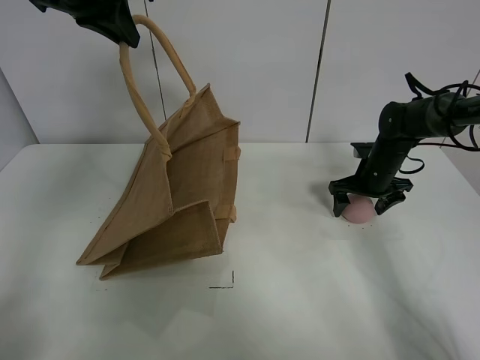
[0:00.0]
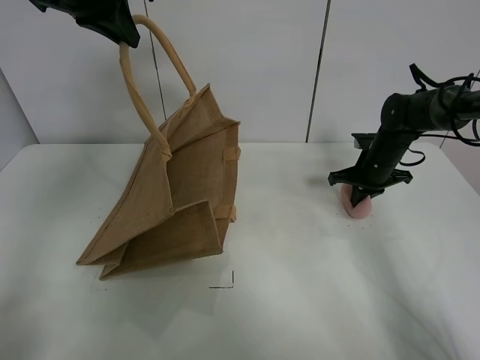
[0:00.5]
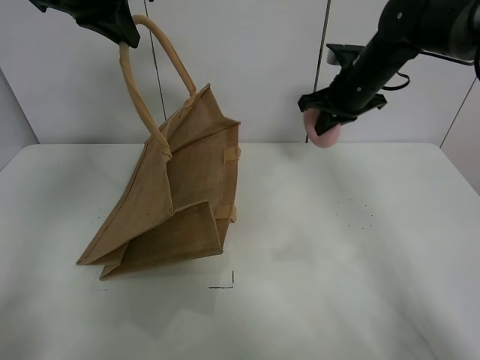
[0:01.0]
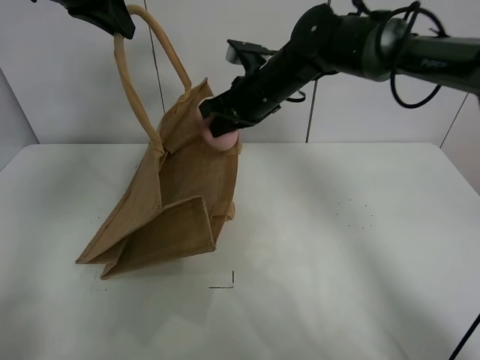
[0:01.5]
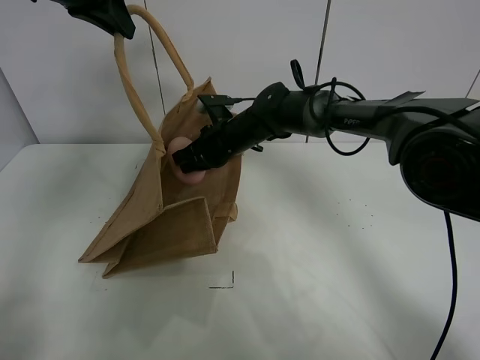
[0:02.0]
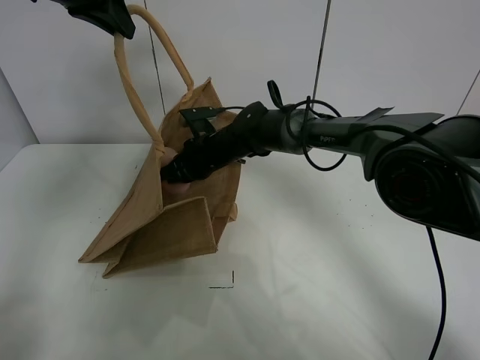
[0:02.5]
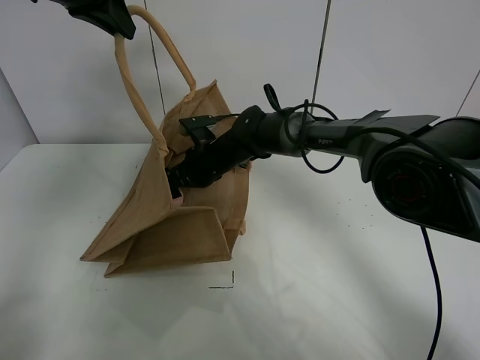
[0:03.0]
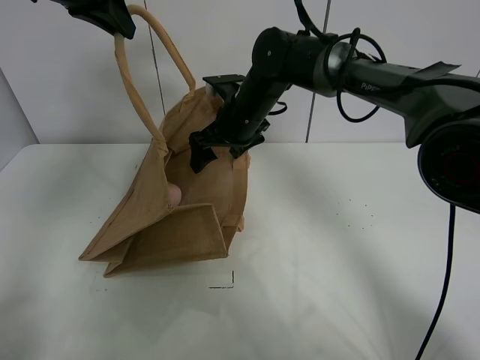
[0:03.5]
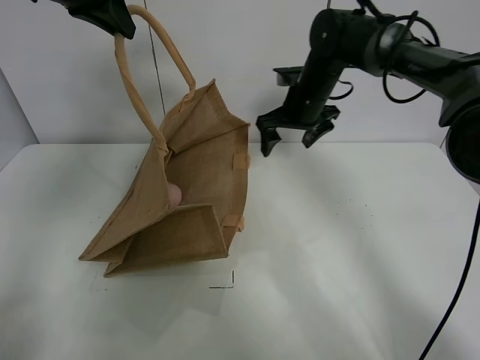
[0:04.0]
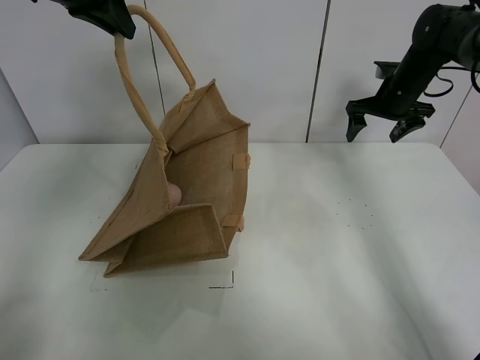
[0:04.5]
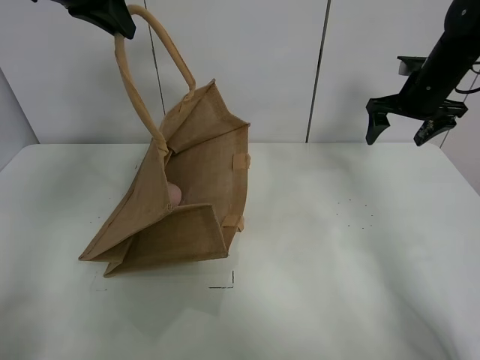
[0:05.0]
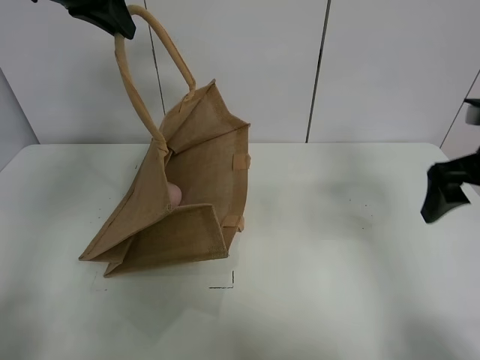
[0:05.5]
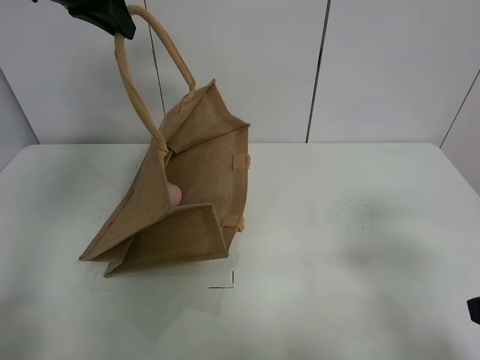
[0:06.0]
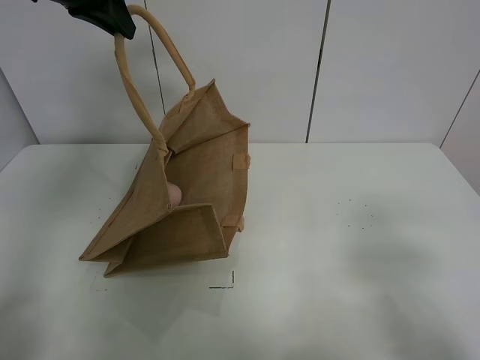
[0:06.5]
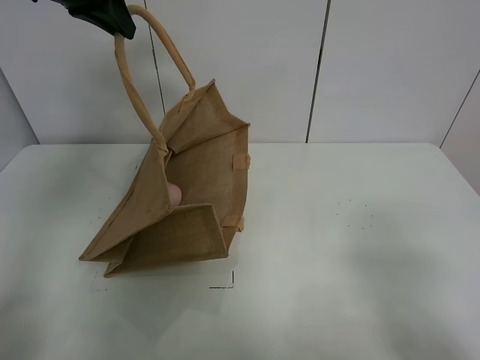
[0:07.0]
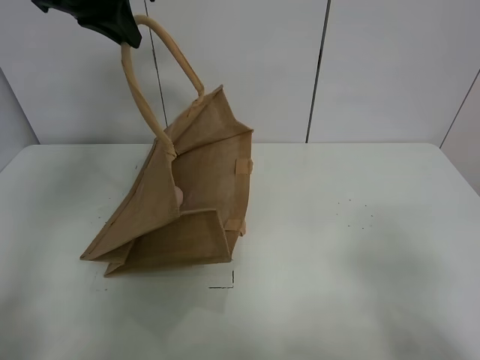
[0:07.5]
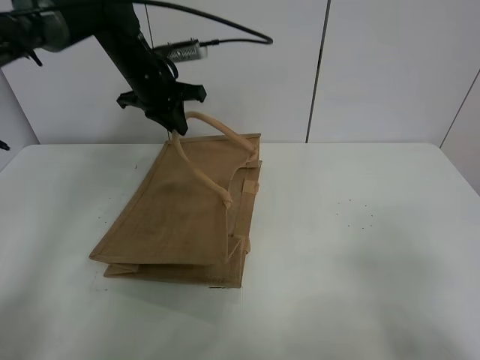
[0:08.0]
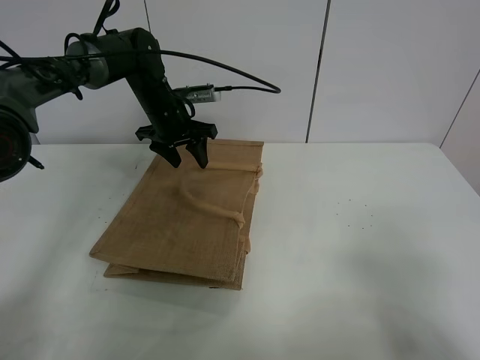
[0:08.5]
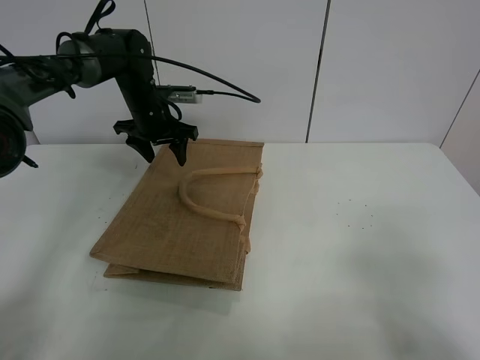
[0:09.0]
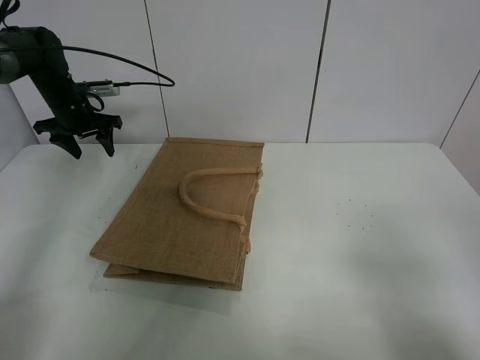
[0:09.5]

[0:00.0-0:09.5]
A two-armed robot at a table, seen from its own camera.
Task of the whole recording: open the brown linen bag and put the peach in the bag.
Step, 0:00.5 to 0:03.5: Place the peach in the handbag with right gripper.
Step, 0:04.0 to 0:09.0: Put down the handbag with left grippe.
0:00.0 to 0:02.0: The right gripper goes some 25 cm to the left, and closes up.
0:02.0 to 0:04.0: The right gripper heads to the right and upward, covering about 15 cm, and opens up.
0:04.0 to 0:05.5: The right gripper moves backward and to the right, roughly 30 cm.
0:05.5 to 0:07.5: The right gripper heads backward, covering some 25 cm.
0:07.5 to 0:09.5: The left gripper shifts about 30 cm downward, to the left and forward, and opens up.

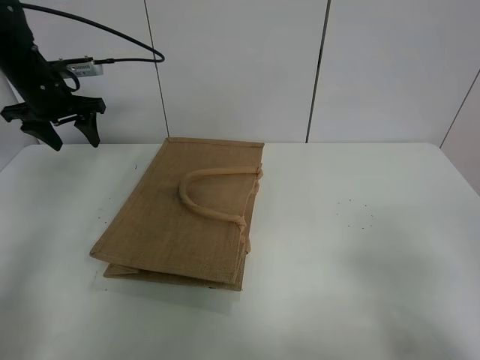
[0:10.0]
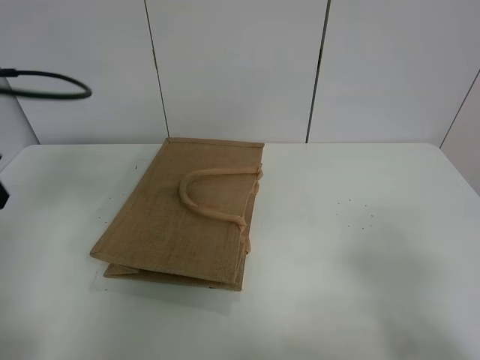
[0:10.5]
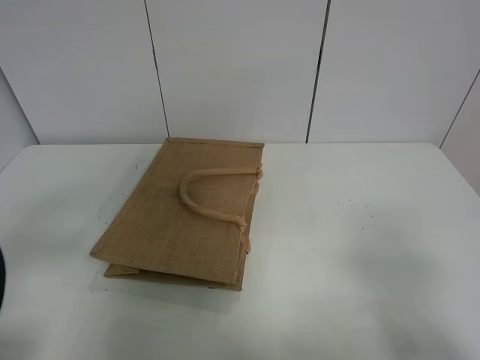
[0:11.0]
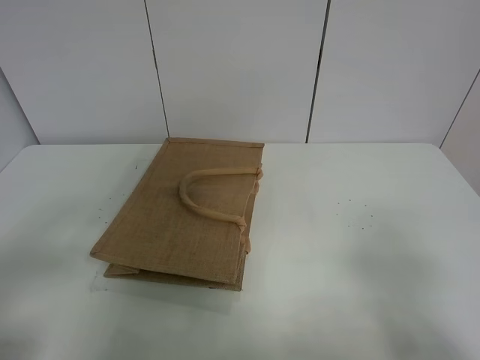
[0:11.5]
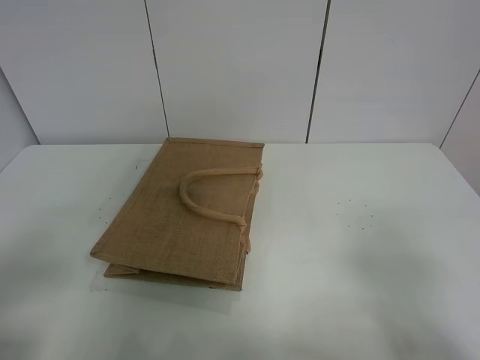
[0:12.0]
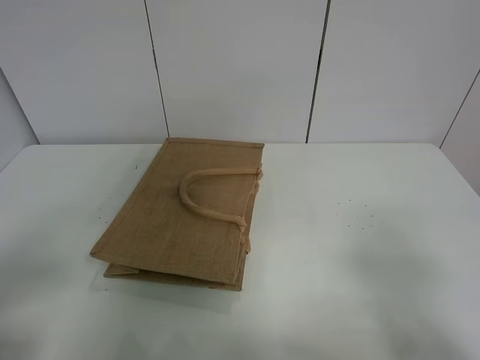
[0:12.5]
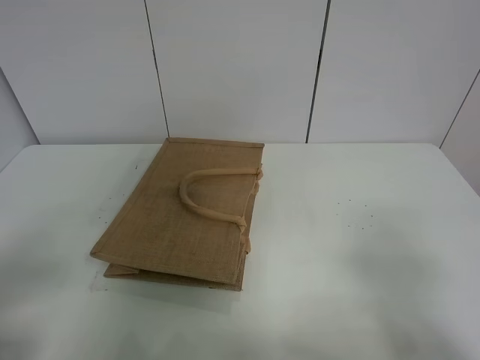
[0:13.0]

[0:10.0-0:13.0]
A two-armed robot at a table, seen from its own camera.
Task of the whole recording: open the brown linen bag and put the peach in the bag.
0:10.0 to 0:11.5: The left gripper heads backward, covering about 40 cm.
